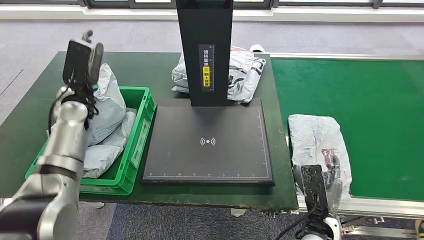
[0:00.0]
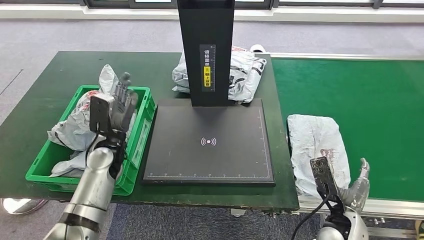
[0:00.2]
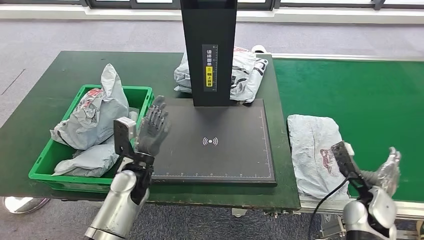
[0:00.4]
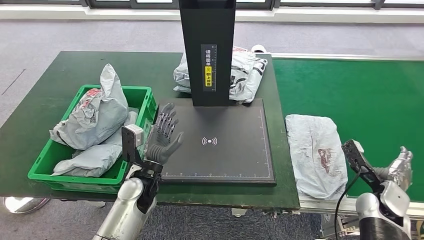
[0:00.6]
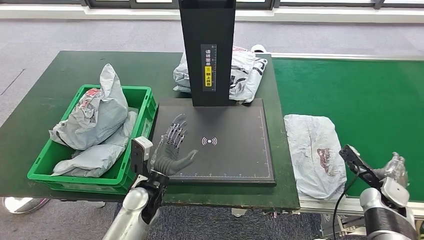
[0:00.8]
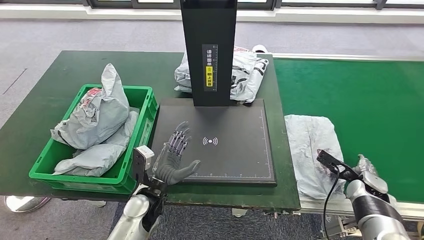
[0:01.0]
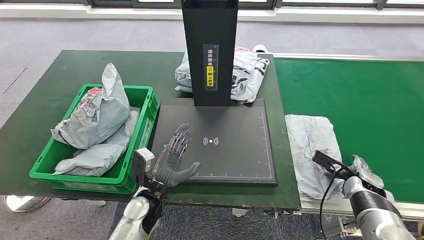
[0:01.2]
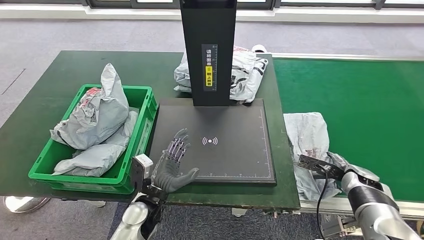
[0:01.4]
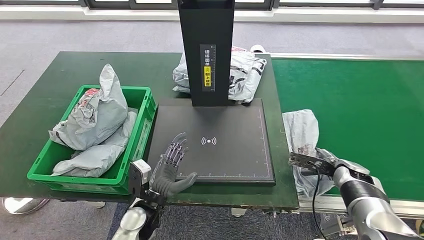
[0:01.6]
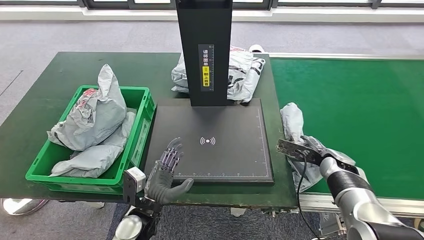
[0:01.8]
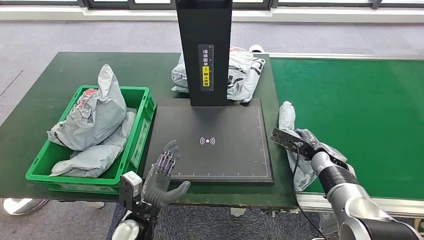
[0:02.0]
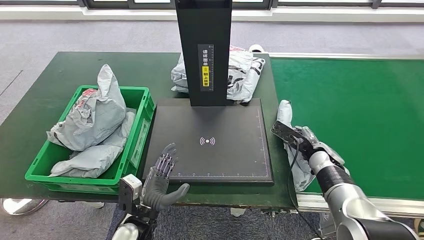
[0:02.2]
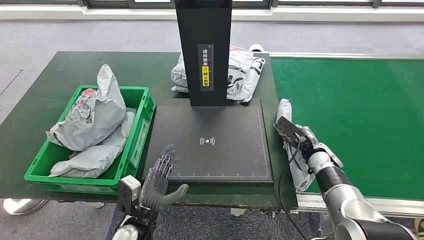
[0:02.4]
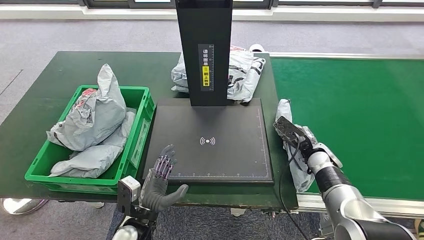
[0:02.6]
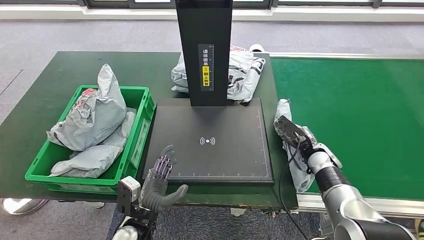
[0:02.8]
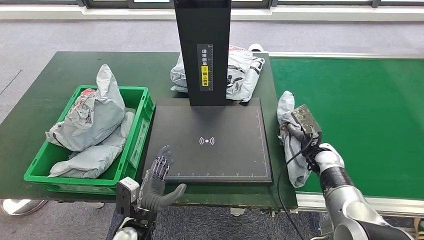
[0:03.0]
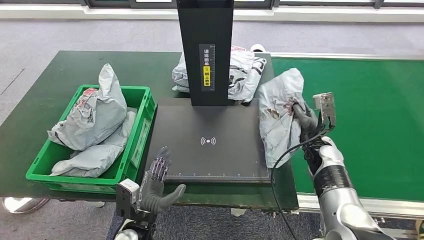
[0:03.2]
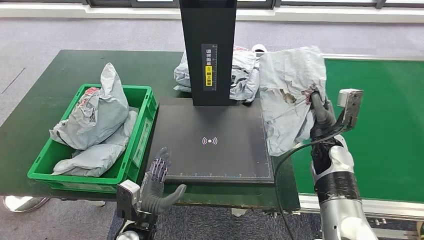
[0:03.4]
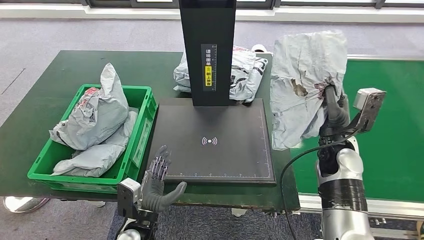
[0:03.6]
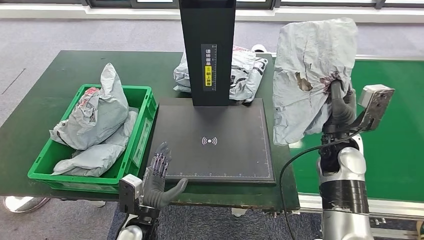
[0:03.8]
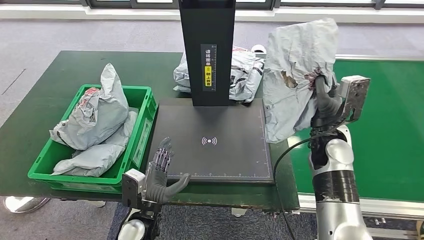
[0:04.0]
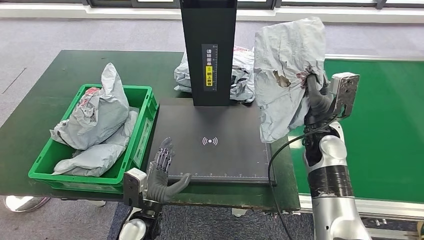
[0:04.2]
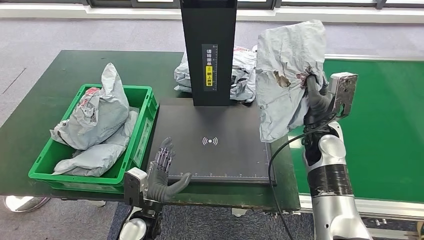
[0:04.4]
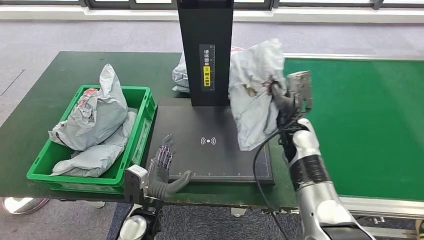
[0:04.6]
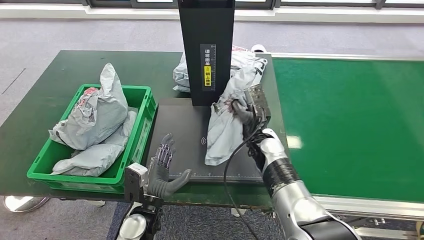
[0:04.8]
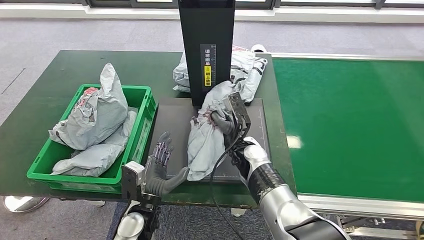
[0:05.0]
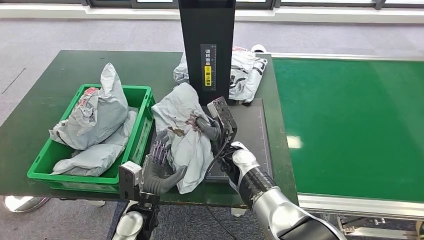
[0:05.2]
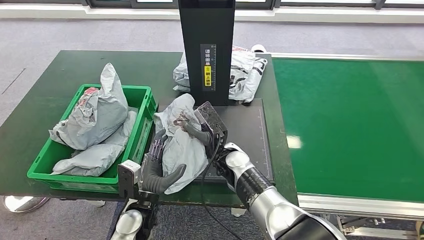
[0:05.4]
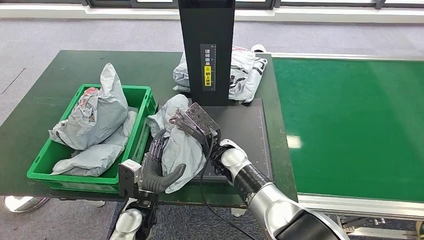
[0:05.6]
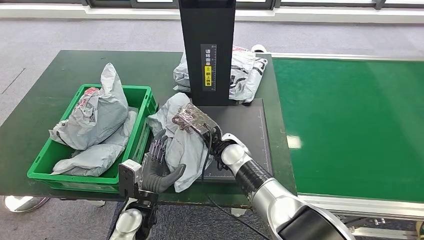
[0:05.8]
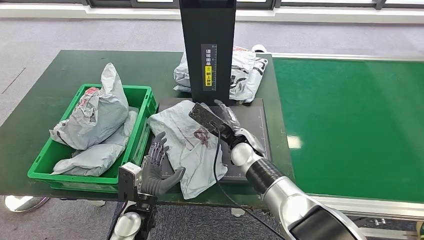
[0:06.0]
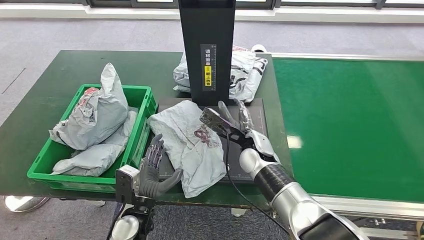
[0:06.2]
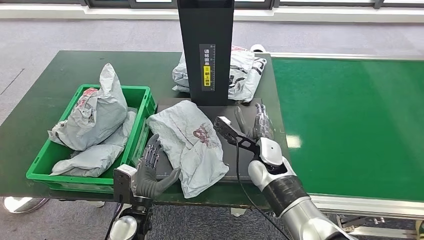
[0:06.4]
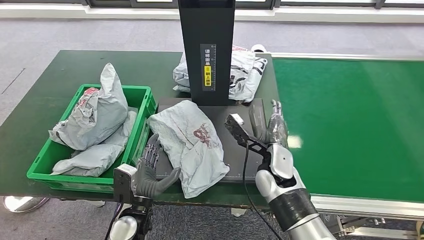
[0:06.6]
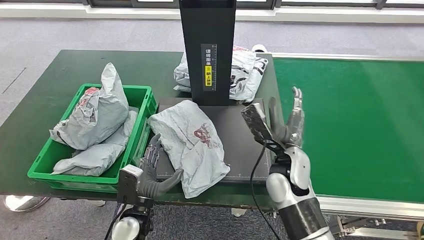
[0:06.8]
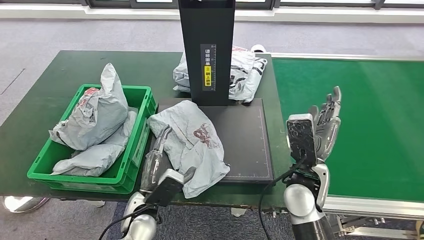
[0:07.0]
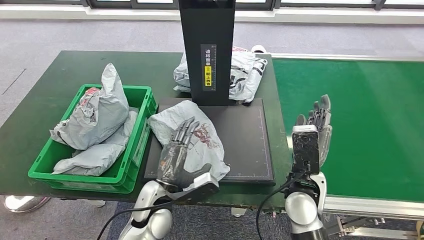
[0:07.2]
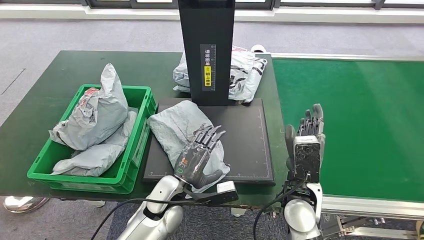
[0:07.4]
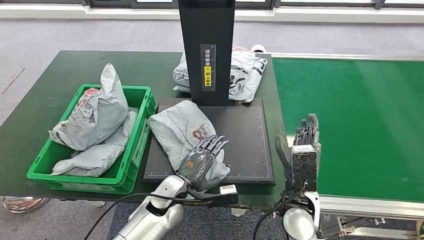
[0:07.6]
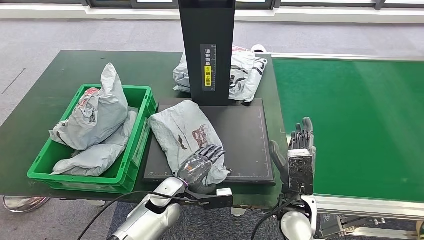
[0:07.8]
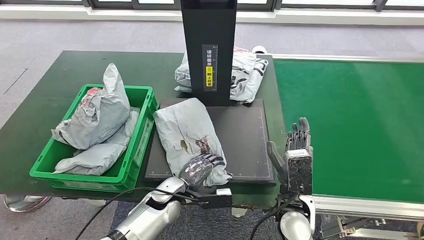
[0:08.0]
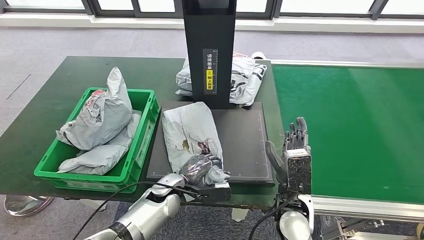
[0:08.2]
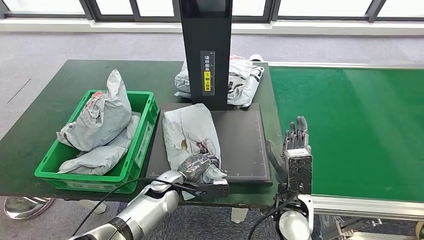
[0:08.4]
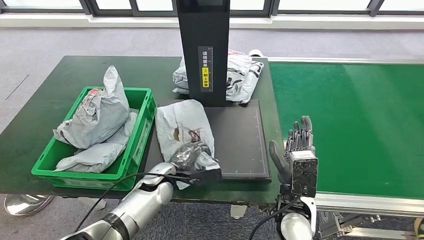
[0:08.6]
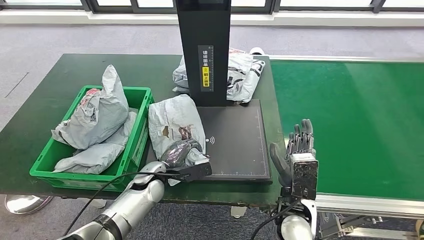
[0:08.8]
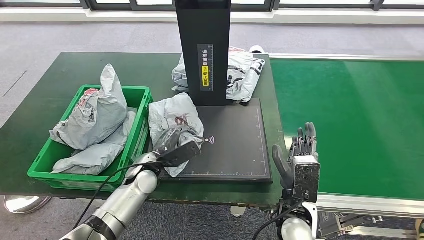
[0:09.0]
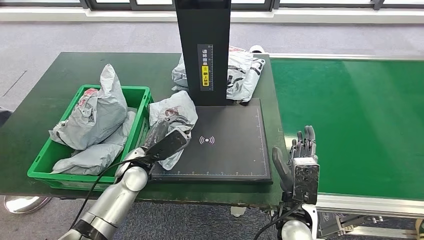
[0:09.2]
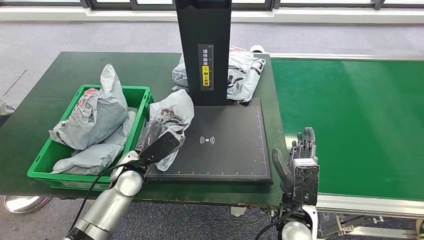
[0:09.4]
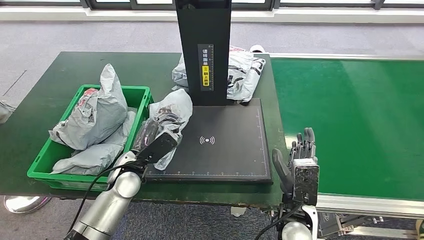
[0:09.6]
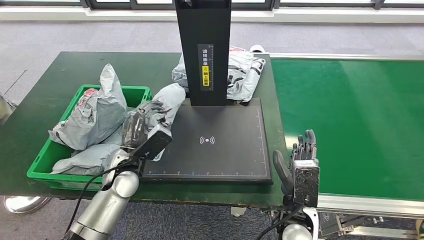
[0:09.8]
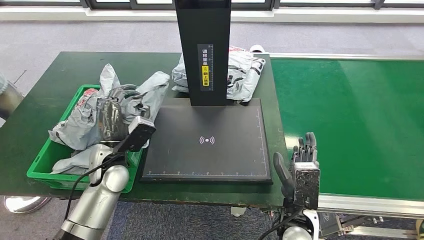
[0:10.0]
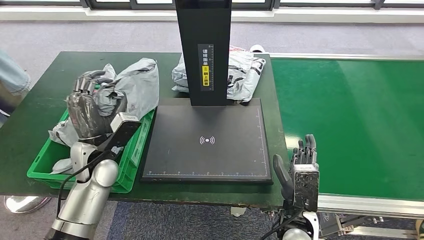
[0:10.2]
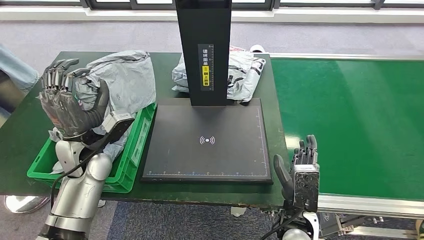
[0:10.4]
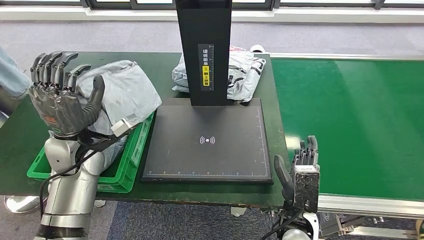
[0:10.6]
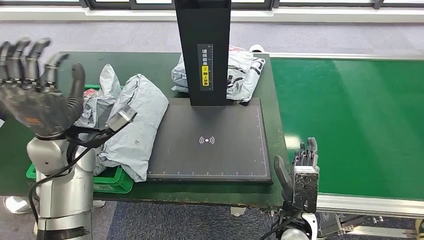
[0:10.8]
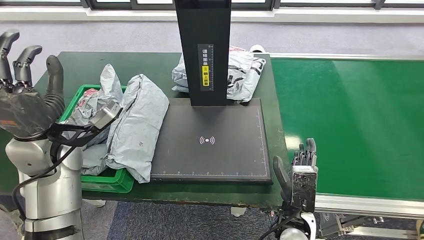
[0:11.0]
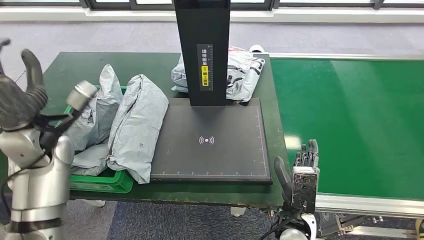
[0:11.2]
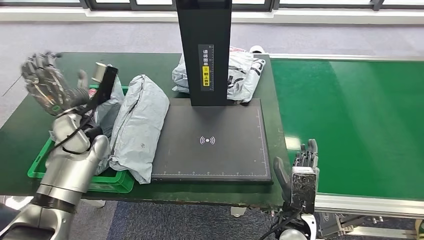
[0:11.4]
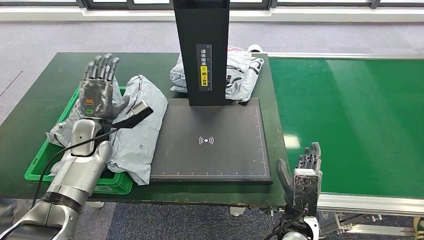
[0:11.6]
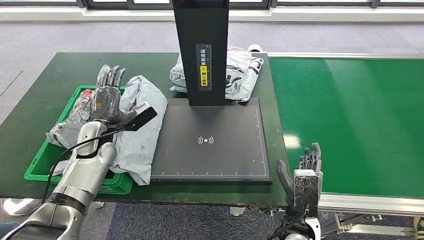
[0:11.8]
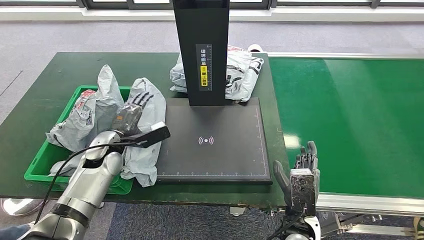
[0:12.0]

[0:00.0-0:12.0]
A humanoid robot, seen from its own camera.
Step, 0:00.0 to 0:03.0: Pick up the parcel from the conveyor belt.
Step, 0:03.2 to 0:06.4: Place the parcel onto the inbound machine.
0:06.0 to 0:07.6: The right hand goes some 15 cm backward and to the right; the left hand moves to the right and forward, about 10 cm.

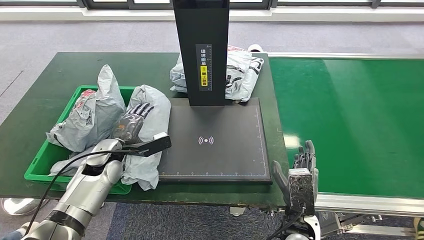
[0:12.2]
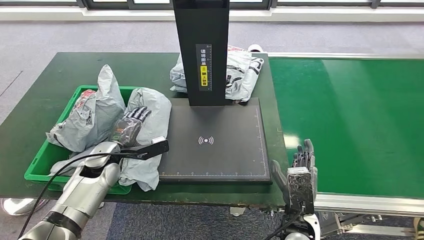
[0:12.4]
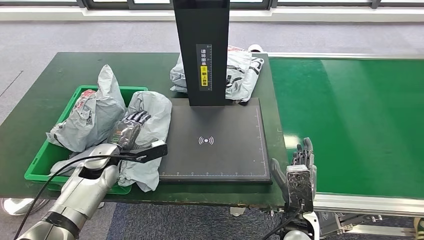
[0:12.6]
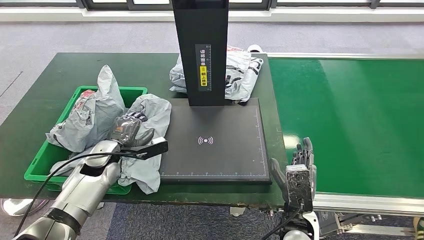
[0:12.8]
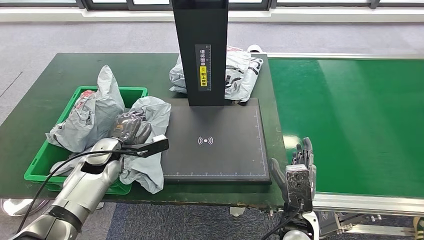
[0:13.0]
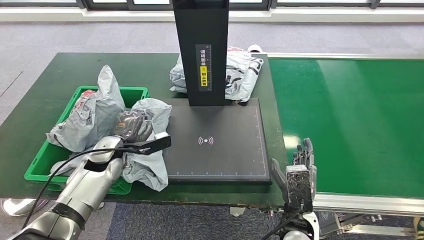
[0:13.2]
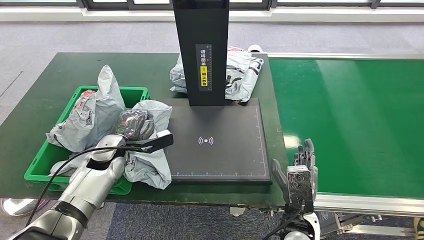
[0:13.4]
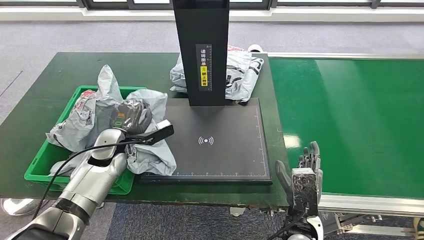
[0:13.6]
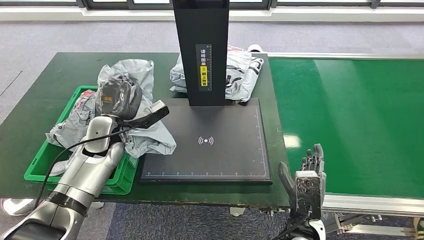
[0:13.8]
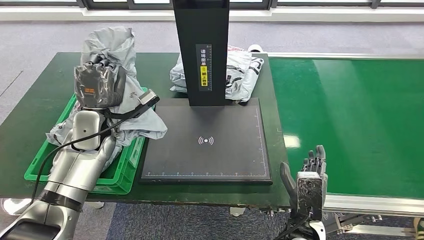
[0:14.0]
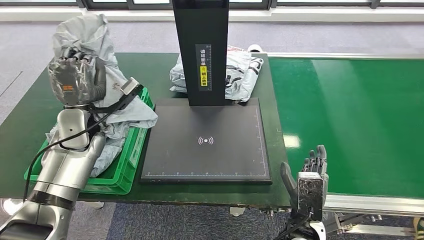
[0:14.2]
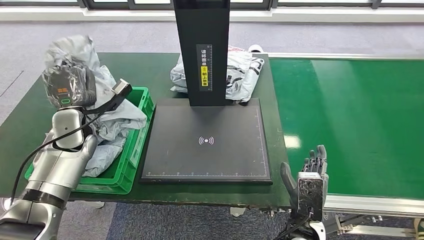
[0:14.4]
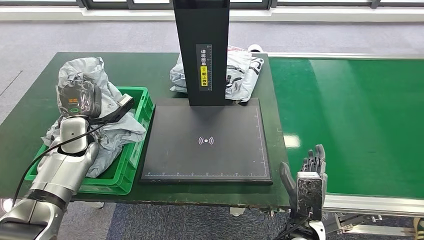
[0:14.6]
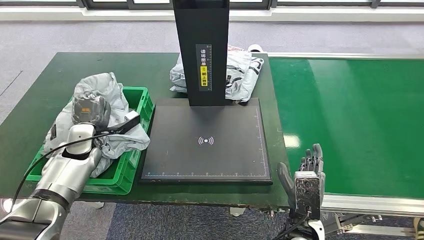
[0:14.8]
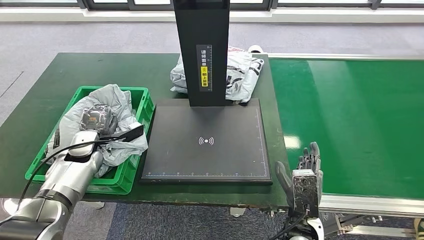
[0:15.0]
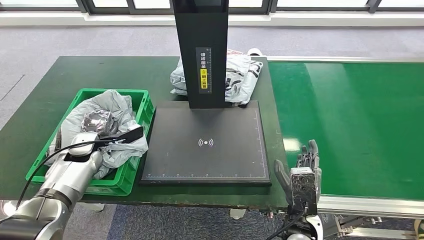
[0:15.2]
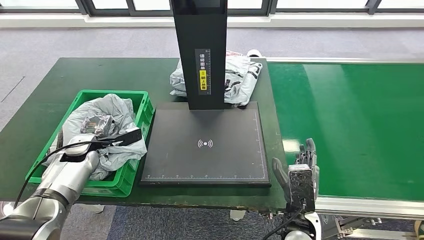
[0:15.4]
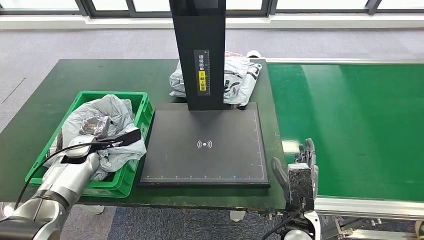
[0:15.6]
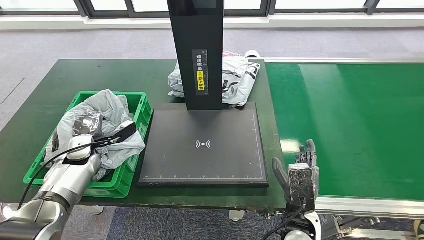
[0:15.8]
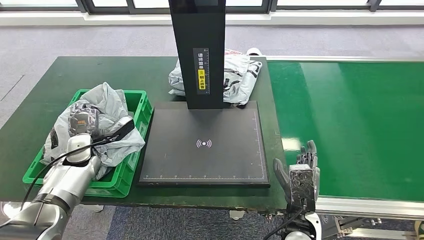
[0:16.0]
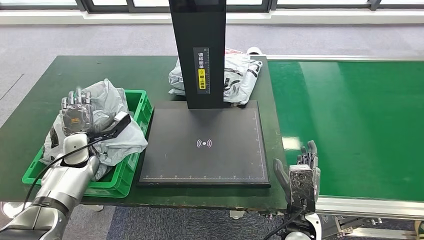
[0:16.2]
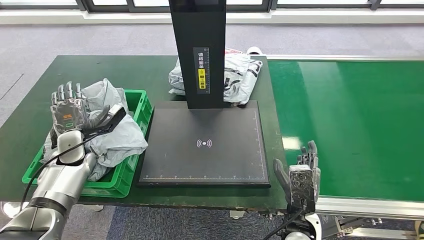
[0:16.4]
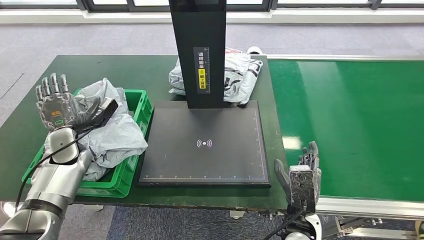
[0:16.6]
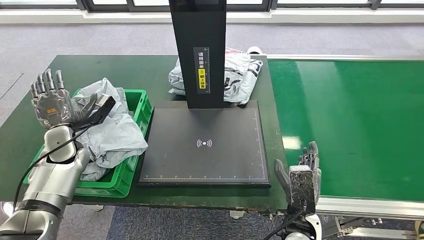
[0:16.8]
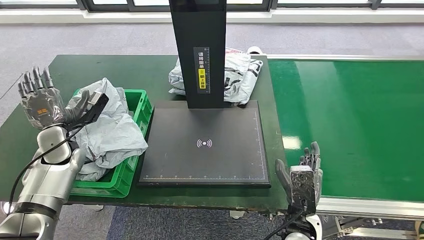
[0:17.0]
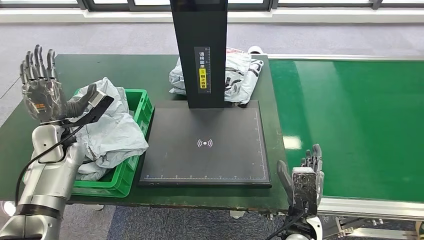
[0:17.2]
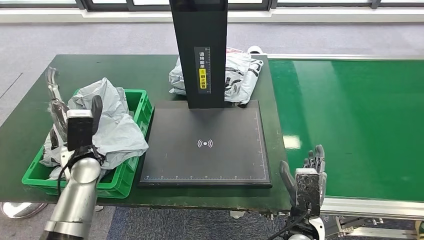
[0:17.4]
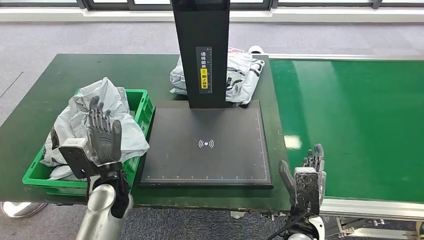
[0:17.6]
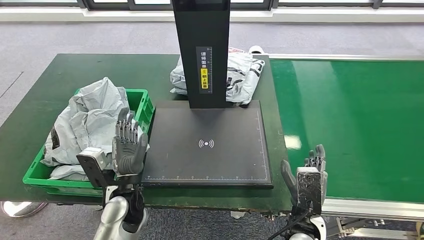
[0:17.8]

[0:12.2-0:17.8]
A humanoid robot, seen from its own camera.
Step, 0:12.2 to 0:14.0: Pick up the parcel from the inbound machine.
Step, 0:14.2 to 0:17.8: Place the parcel into the delivery box.
0:12.2 to 0:13.6: The hands stay close to where they were, moving slightly.
0:13.6 to 0:15.0: The left hand heads to the left, covering approximately 10 cm, and reaches roughly 10 cm upward, then returns.
